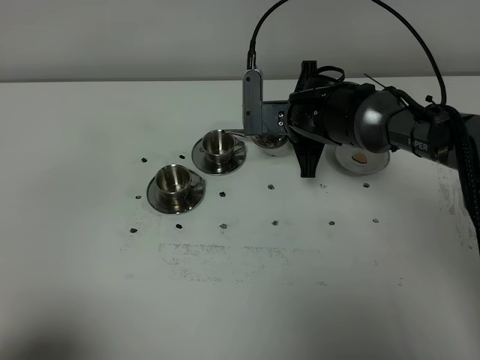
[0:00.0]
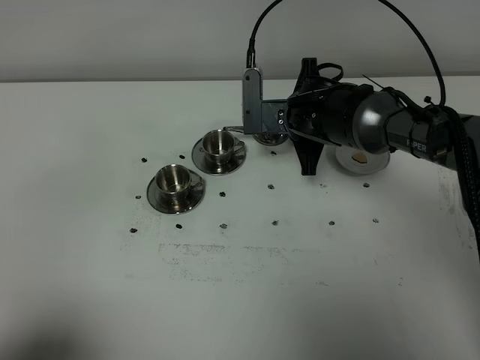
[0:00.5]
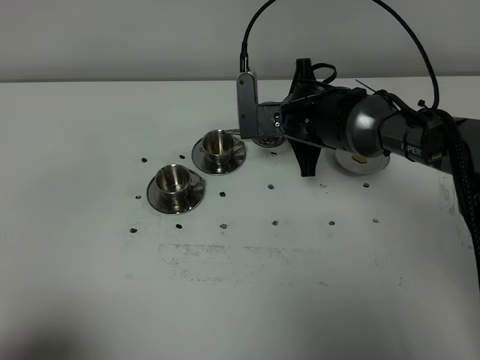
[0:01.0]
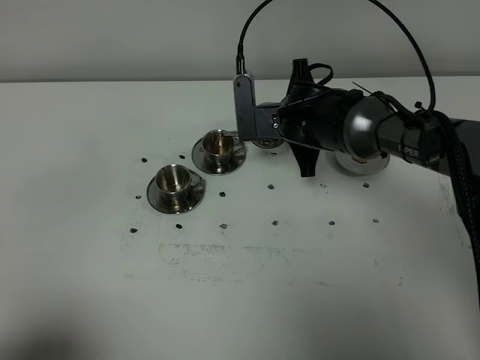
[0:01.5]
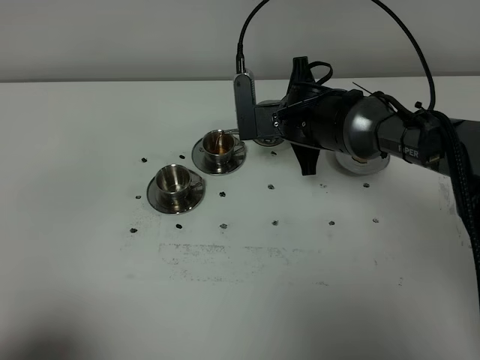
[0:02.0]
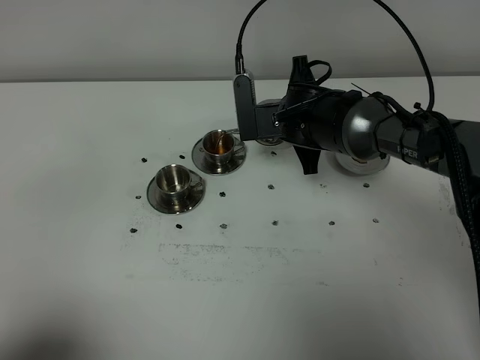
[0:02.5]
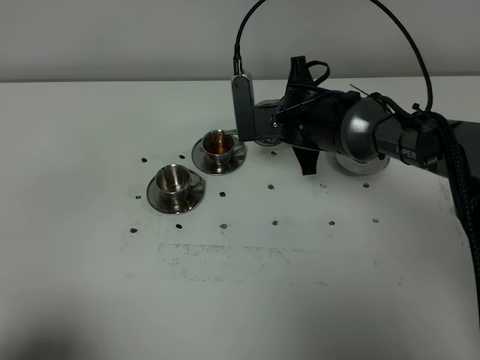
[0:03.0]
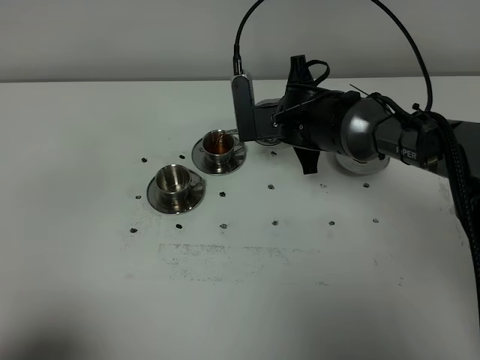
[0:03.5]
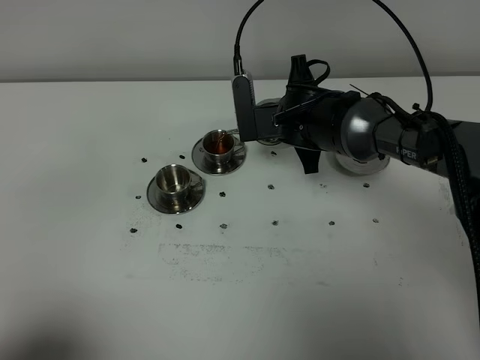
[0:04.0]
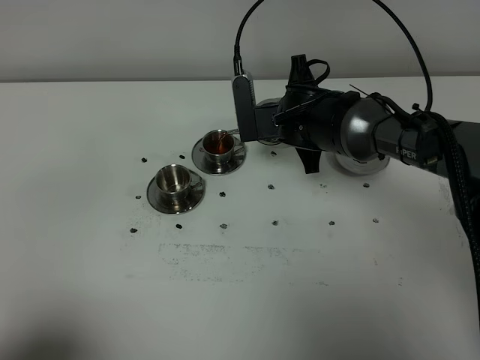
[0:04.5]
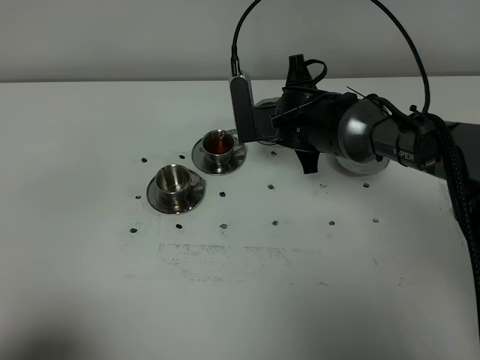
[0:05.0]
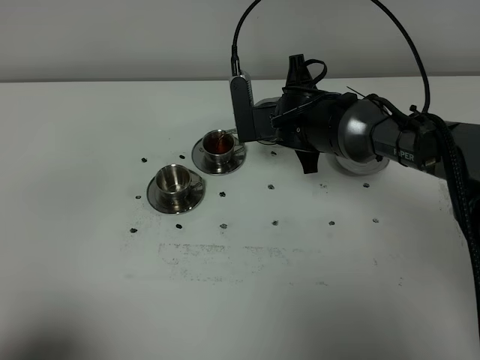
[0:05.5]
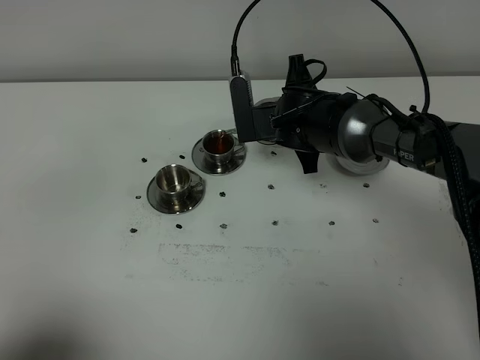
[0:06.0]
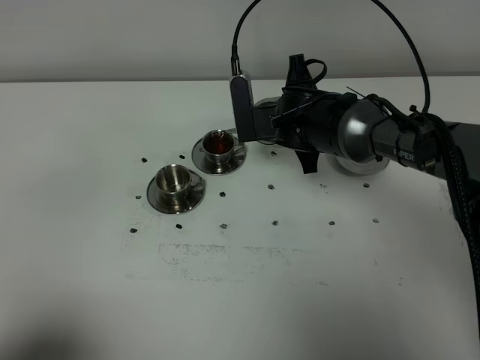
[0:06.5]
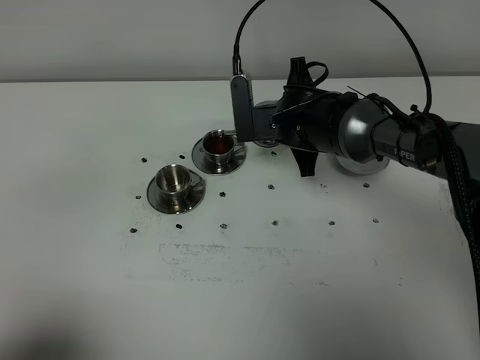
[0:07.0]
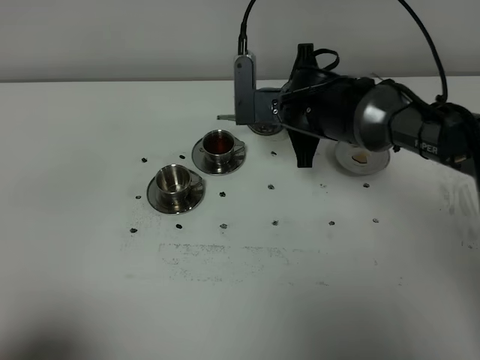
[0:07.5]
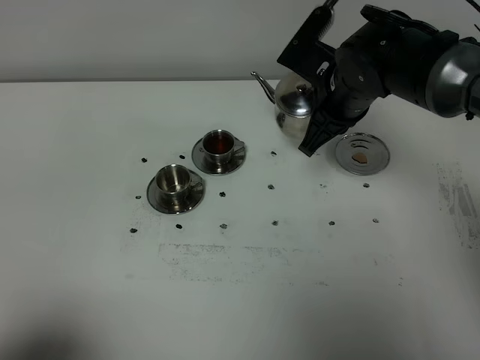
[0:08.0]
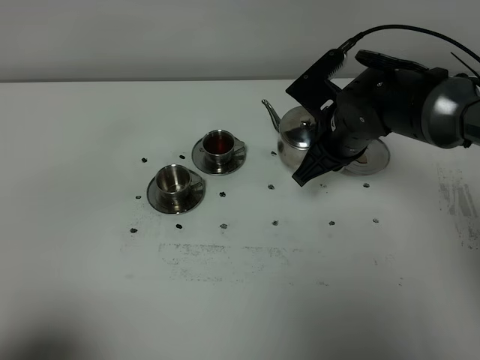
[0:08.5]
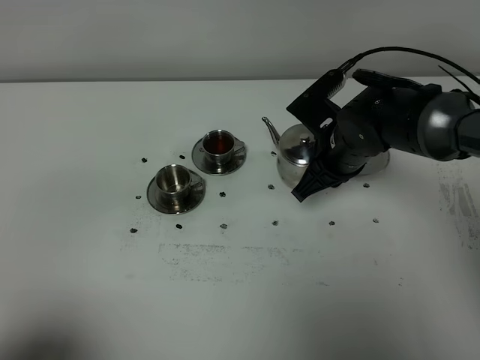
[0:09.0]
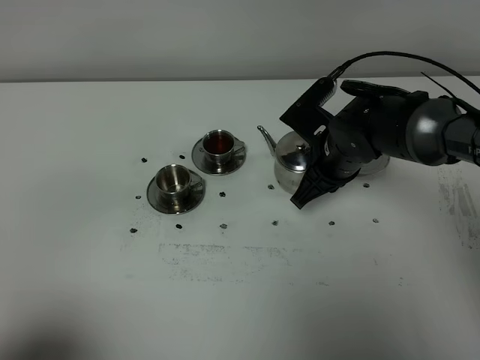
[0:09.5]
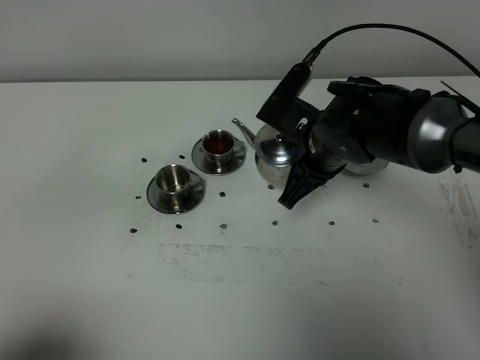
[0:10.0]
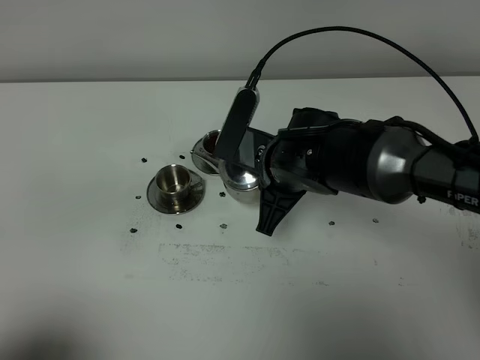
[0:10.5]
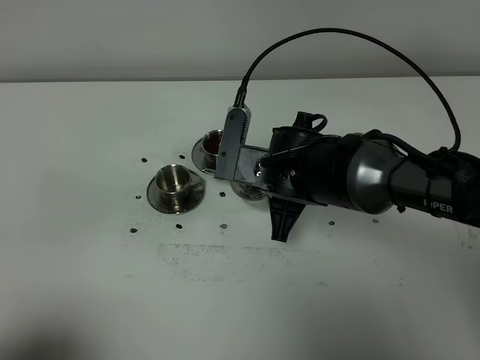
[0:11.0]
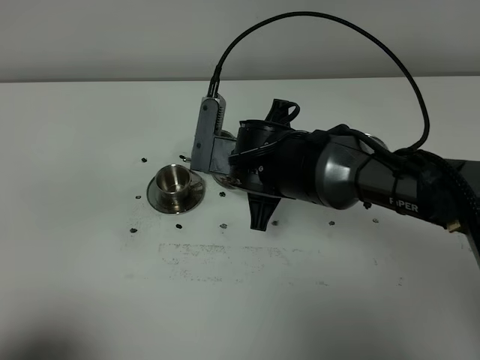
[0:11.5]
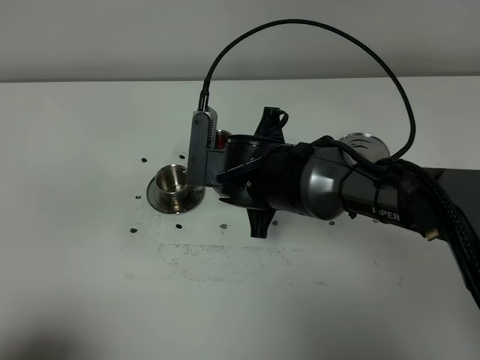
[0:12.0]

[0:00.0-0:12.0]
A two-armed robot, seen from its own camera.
Task of the whole recording: grasp the stainless steel teapot and pour the tea into the two stainless steel teacups one by one, put the stainless steel teapot back in its original place.
0:00.0 to 0:02.0: The grippers move only a little.
0:02.0 to 0:06.0: Neither gripper changes place.
0:06.0 to 0:08.0: The right gripper shifts roughly 5 cm upward.
0:08.0 to 0:10.0: The right gripper shifts by approximately 5 cm.
0:10.0 to 0:12.0: The right gripper is displaced to the left by about 10 cm.

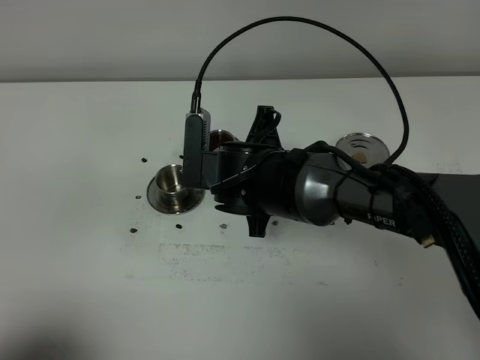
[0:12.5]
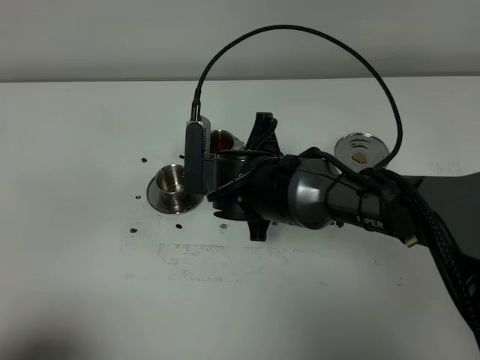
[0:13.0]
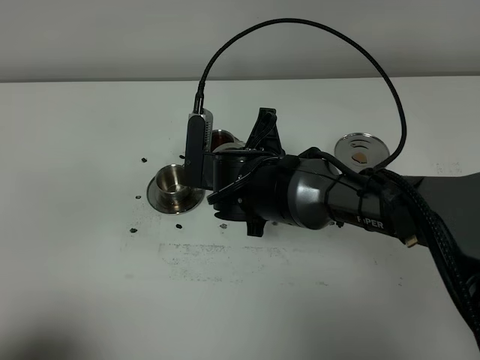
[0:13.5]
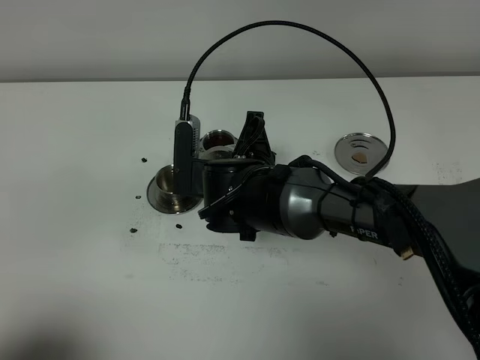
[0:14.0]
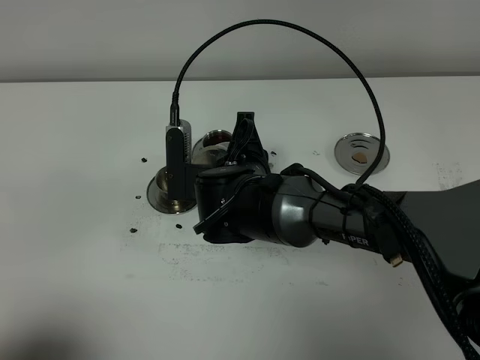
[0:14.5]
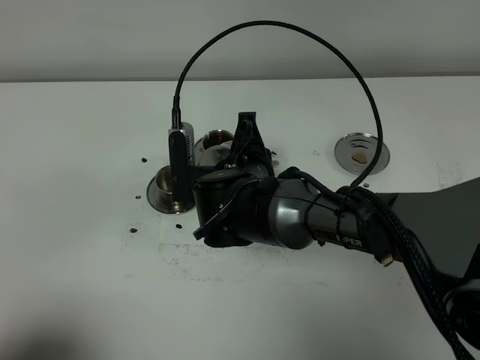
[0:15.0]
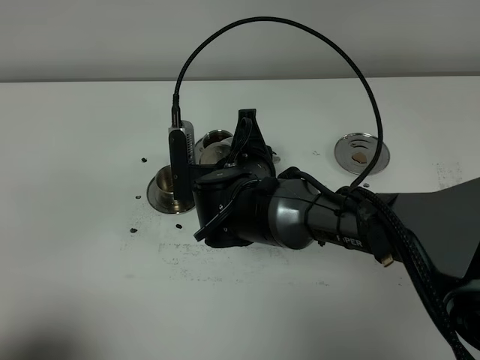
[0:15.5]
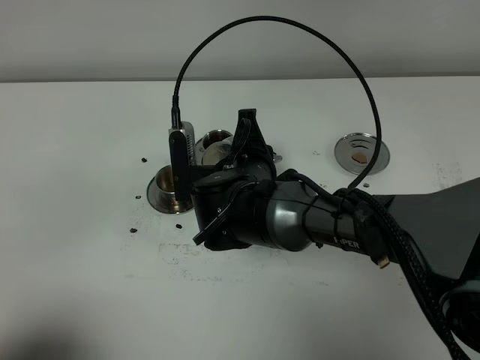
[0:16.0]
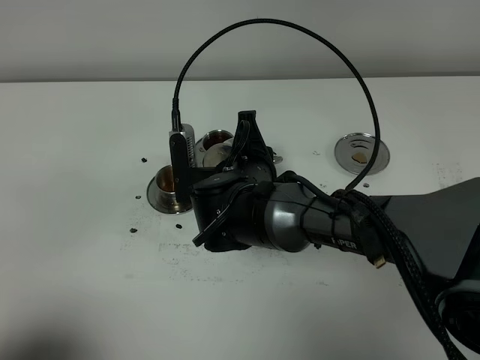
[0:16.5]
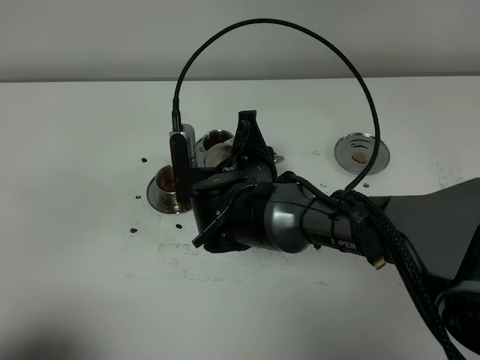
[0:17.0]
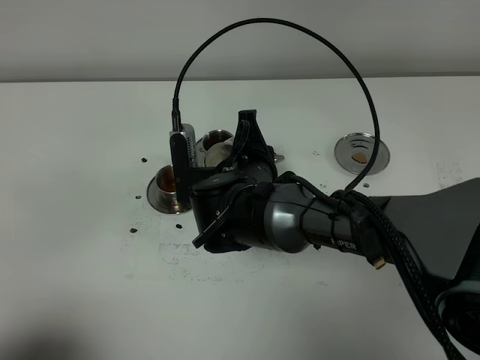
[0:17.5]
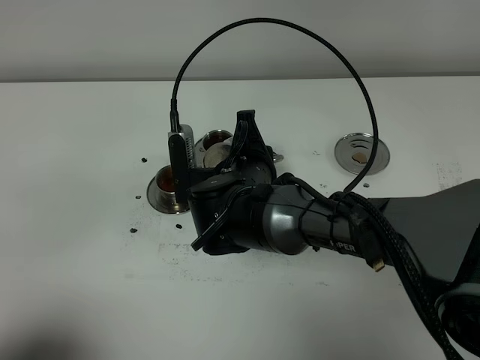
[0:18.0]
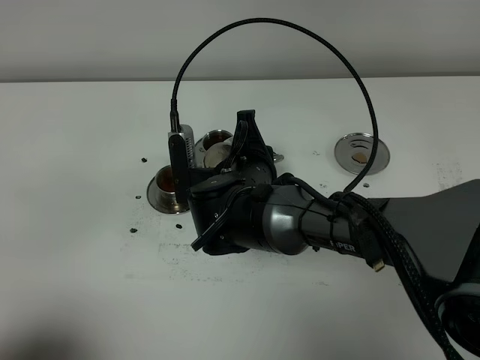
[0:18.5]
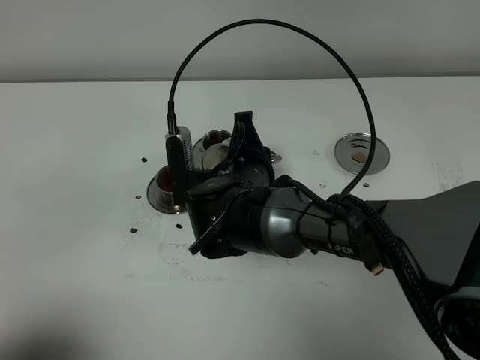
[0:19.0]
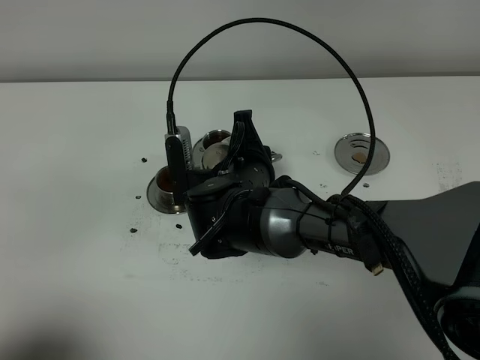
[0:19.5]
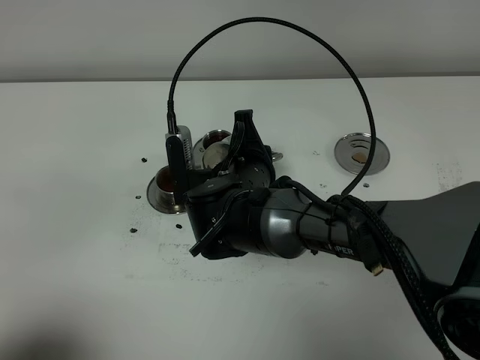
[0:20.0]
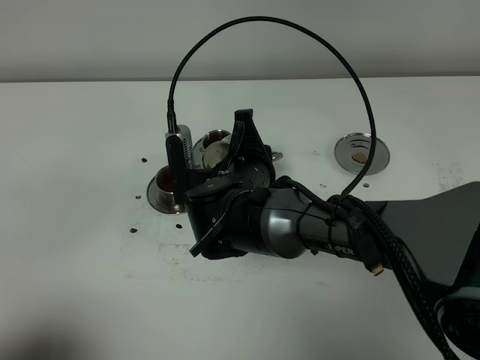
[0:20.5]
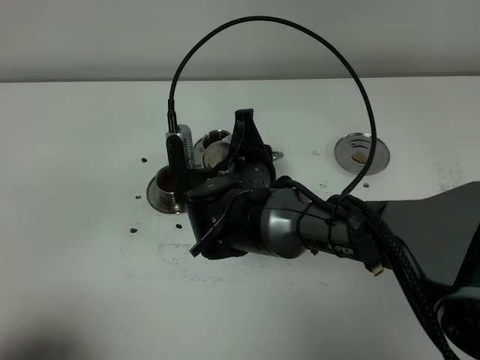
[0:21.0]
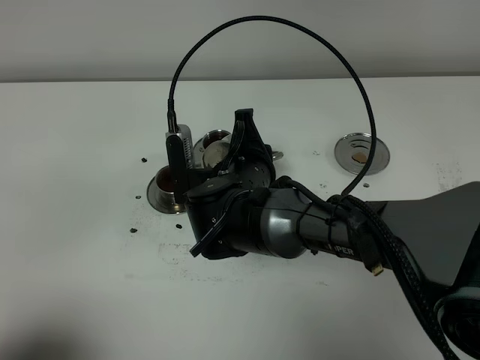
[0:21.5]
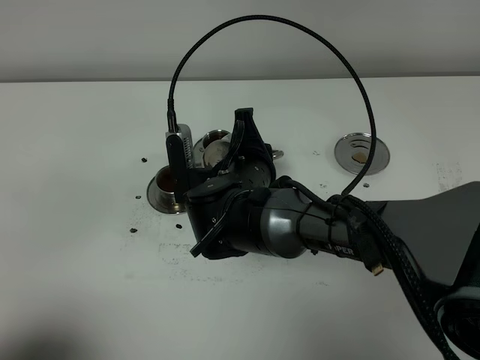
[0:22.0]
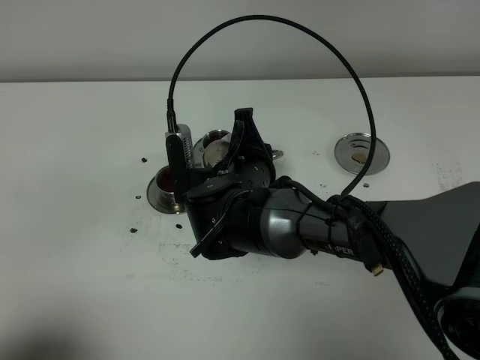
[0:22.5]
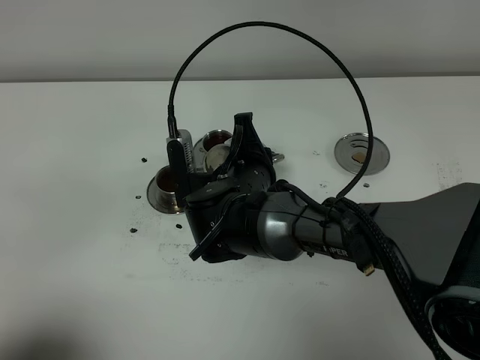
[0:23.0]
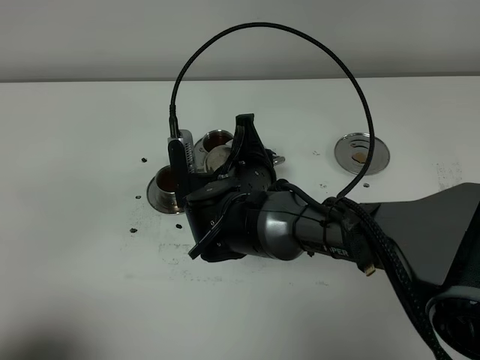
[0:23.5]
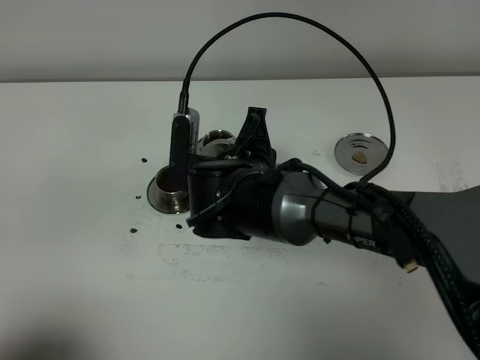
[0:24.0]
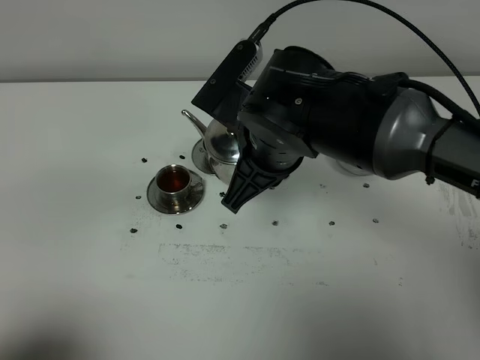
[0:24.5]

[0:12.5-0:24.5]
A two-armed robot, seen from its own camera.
Task of the whole recording: grasp the stainless steel teapot and pour the tea into the two stainless steel teacups one by one, put the stainless steel teapot back in its original place.
Step, 0:12.5 to 0:24.0: Pour tea into the teacup with the right gripper.
0:12.5 to 0:16.5: The grippers make only small movements.
0:16.5 to 0:22.5: Both grippers stay put.
0:22.5 to 0:24.5: The right gripper shifts approximately 10 cm upward.

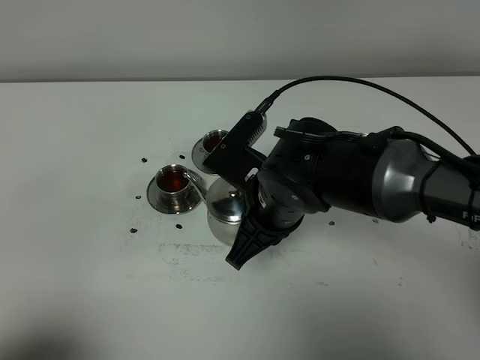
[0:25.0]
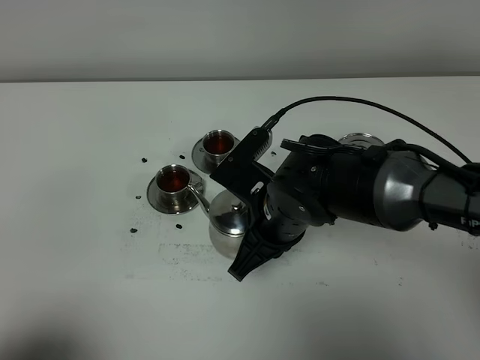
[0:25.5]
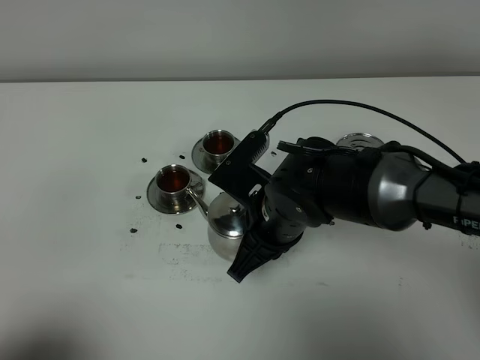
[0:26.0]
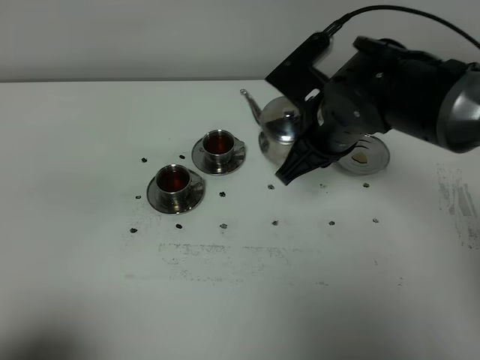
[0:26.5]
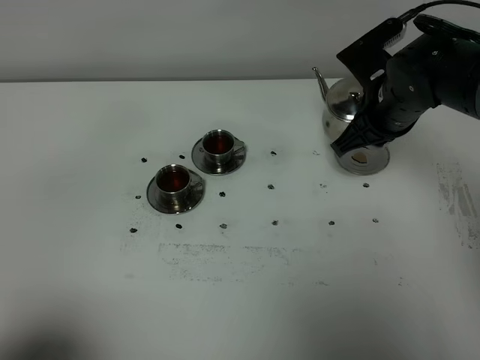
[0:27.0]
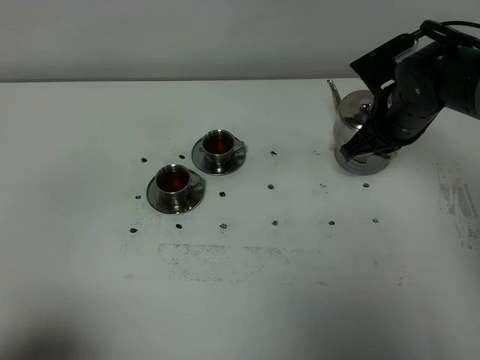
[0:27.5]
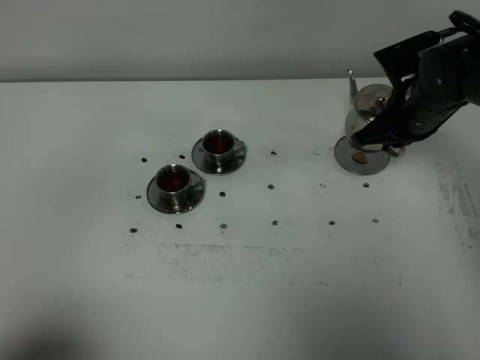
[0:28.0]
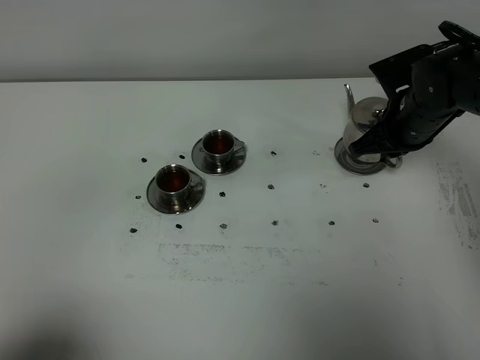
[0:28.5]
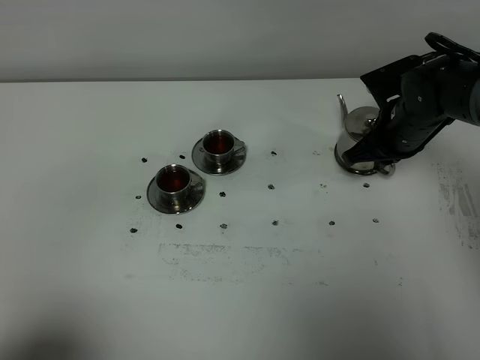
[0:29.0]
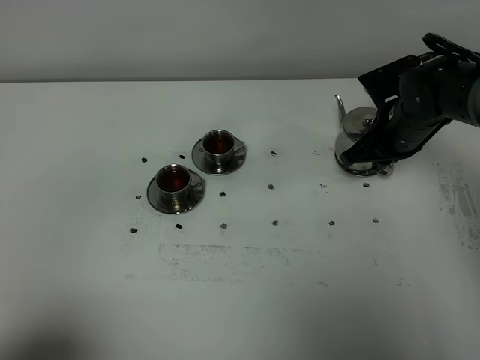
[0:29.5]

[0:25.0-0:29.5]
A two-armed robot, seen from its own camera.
Task of the whole recording: grasp the stainless steel teapot and pour the tea into the two stainless steel teacups one by one, put the stainless steel teapot back in its original place.
0:25.0 to 0:27.0: The right gripper is displaced to the right and forward by approximately 20 cm.
0:27.0 to 0:29.5: The right gripper travels downward by approximately 5 cm.
